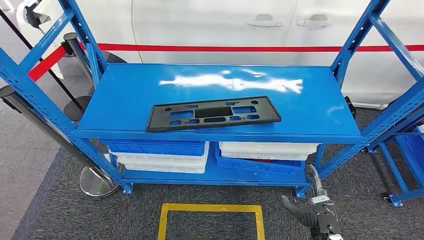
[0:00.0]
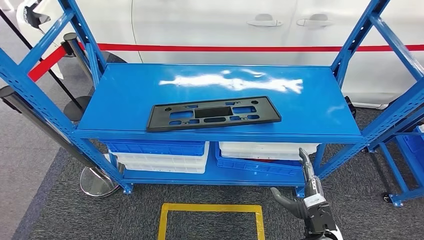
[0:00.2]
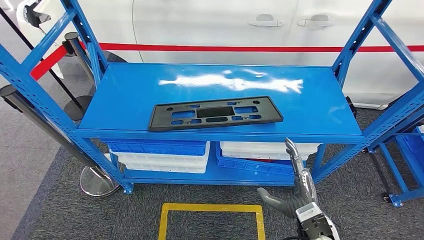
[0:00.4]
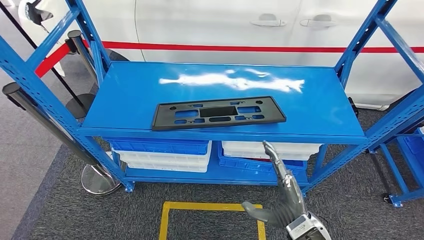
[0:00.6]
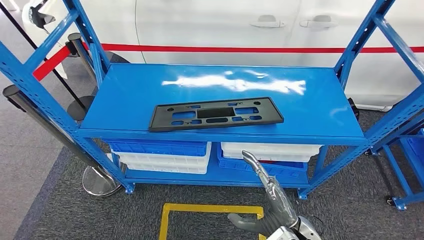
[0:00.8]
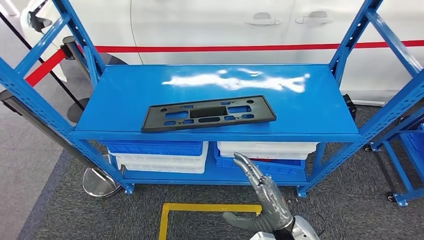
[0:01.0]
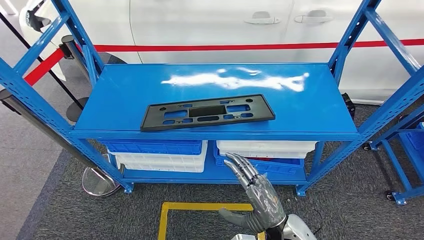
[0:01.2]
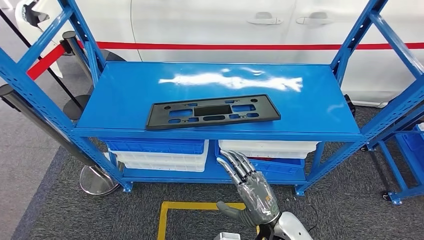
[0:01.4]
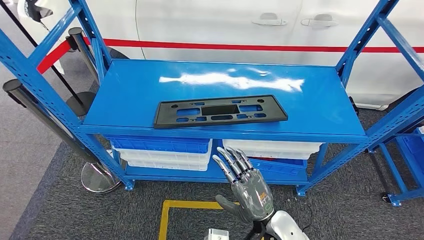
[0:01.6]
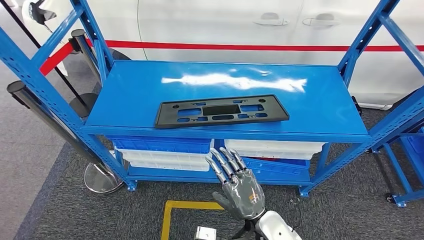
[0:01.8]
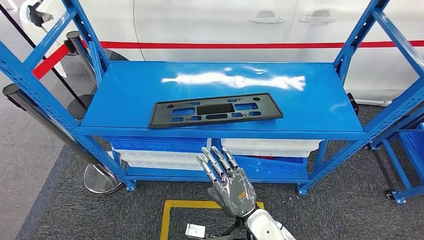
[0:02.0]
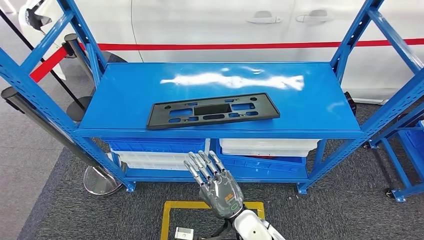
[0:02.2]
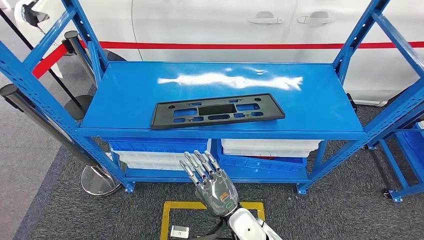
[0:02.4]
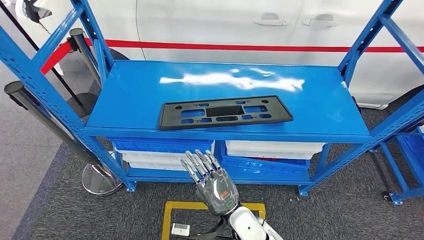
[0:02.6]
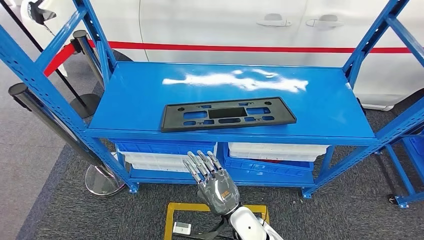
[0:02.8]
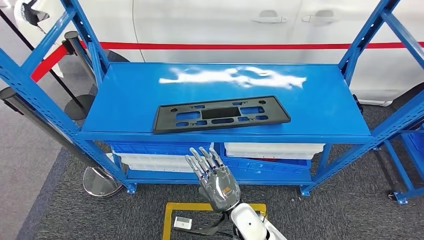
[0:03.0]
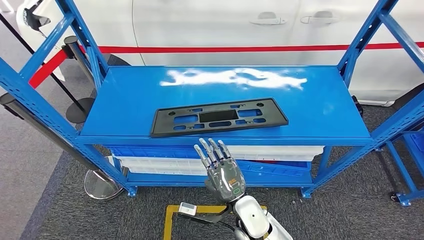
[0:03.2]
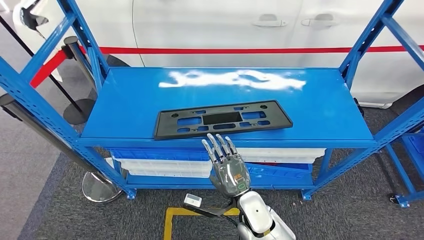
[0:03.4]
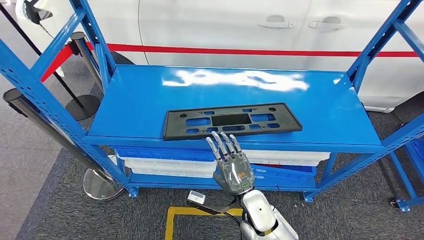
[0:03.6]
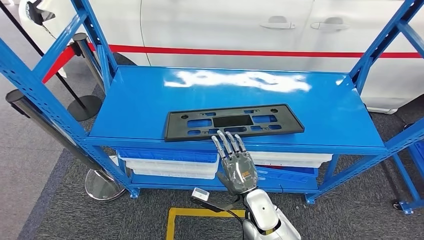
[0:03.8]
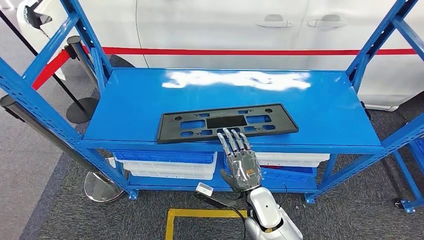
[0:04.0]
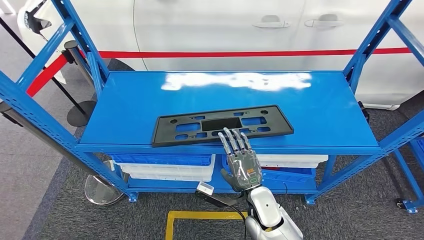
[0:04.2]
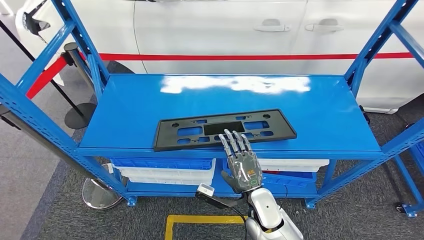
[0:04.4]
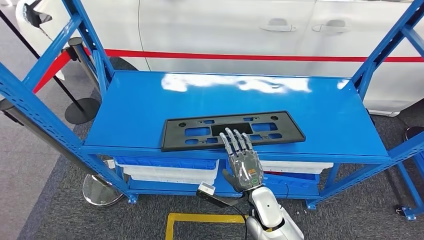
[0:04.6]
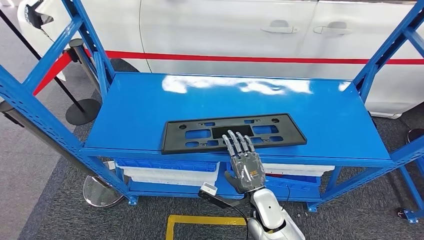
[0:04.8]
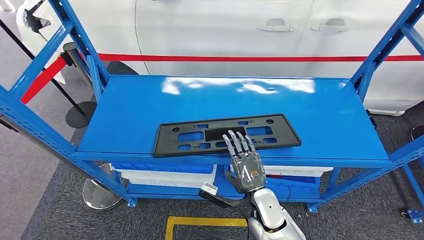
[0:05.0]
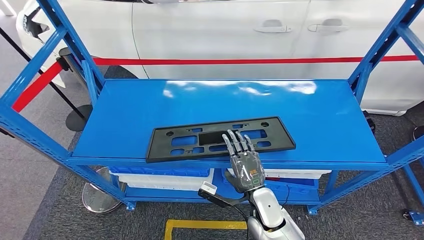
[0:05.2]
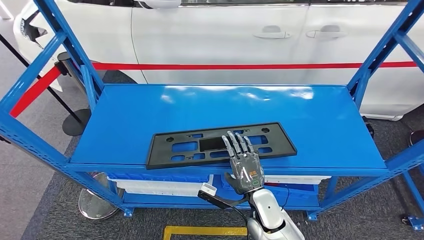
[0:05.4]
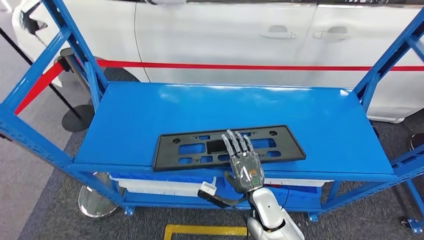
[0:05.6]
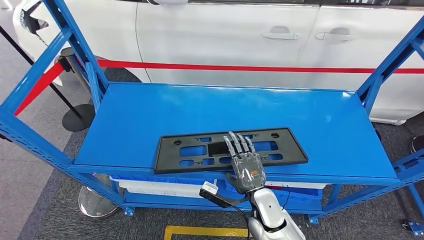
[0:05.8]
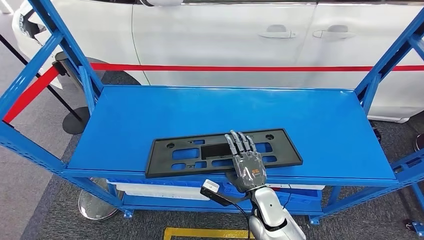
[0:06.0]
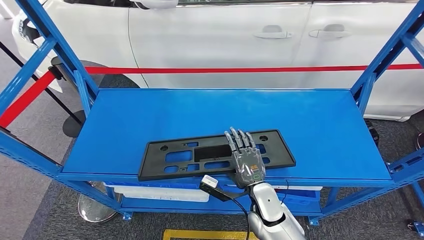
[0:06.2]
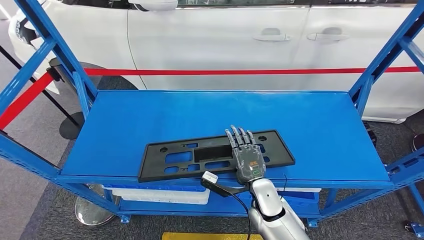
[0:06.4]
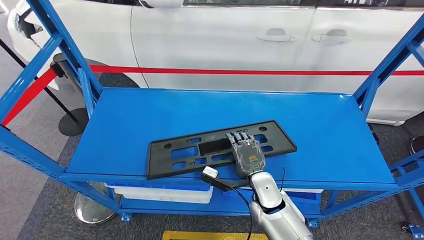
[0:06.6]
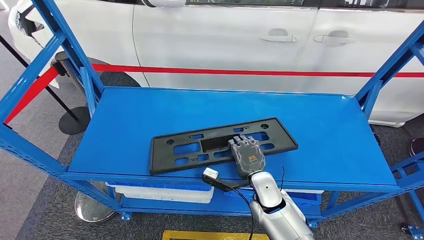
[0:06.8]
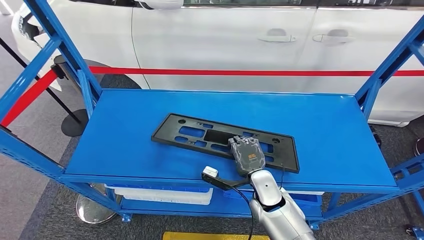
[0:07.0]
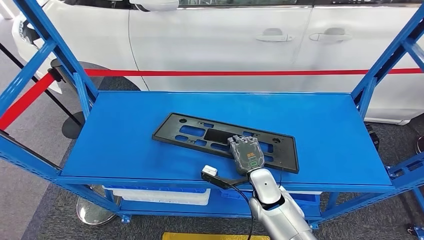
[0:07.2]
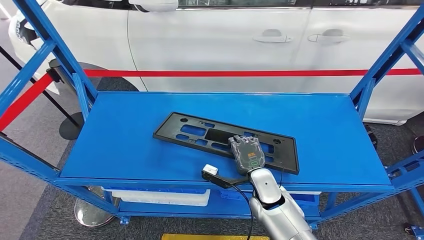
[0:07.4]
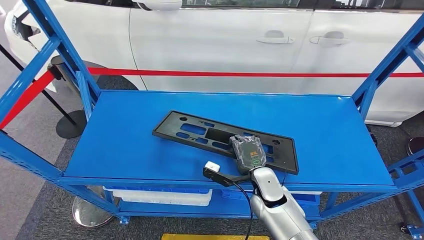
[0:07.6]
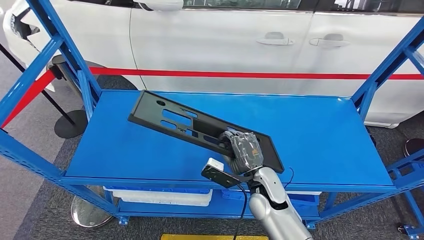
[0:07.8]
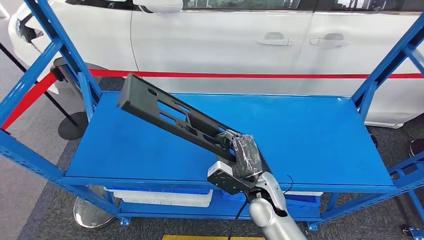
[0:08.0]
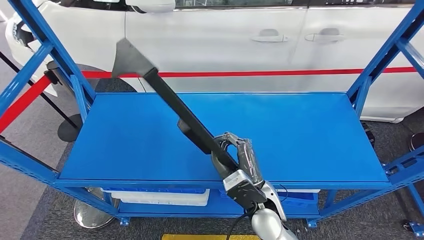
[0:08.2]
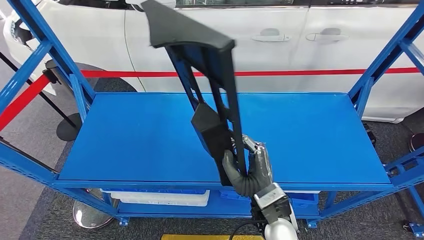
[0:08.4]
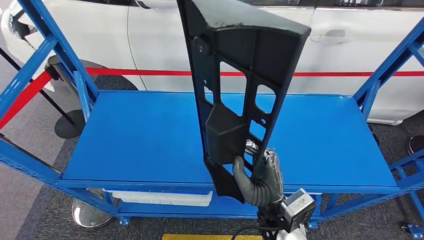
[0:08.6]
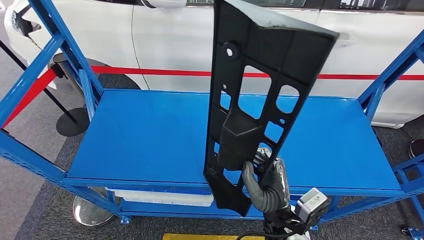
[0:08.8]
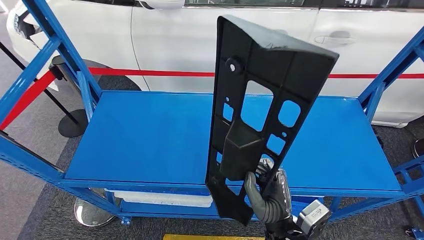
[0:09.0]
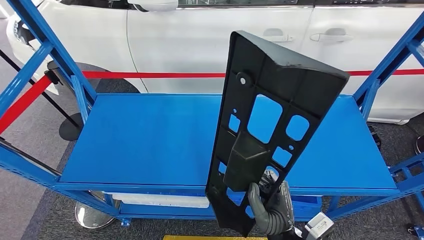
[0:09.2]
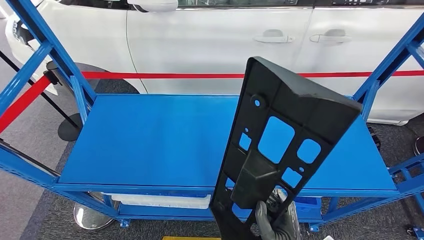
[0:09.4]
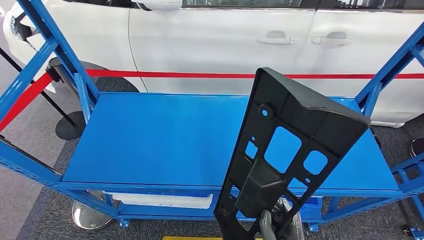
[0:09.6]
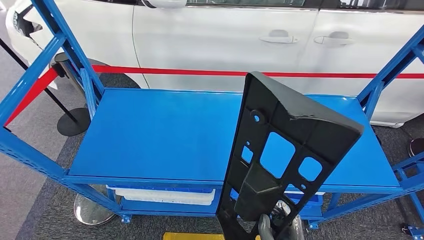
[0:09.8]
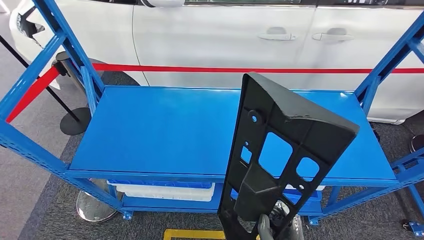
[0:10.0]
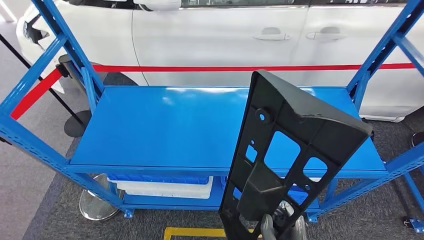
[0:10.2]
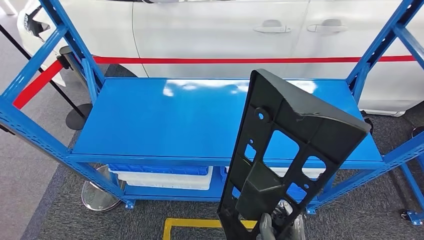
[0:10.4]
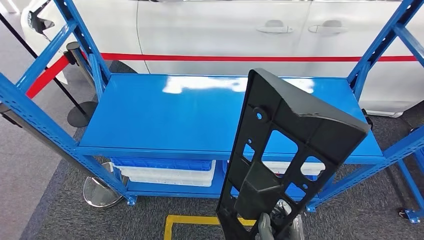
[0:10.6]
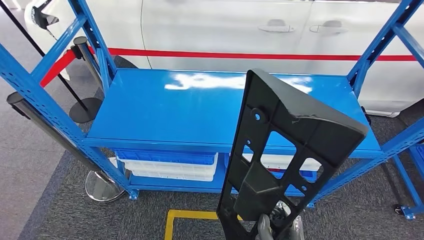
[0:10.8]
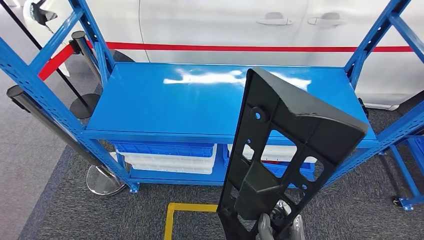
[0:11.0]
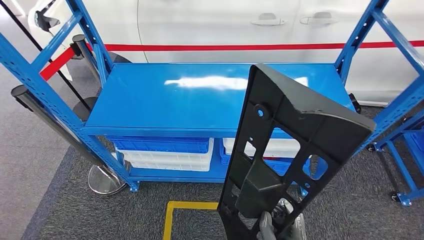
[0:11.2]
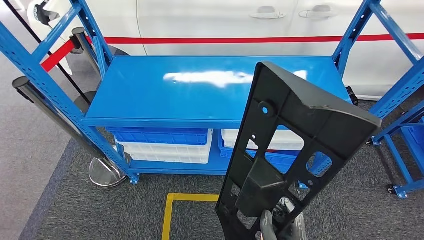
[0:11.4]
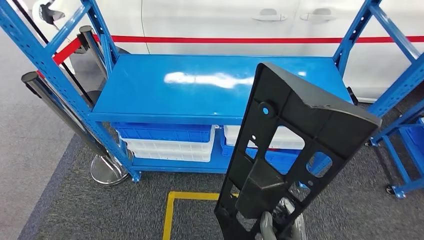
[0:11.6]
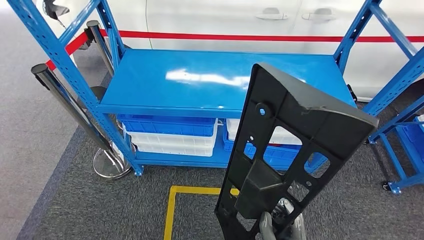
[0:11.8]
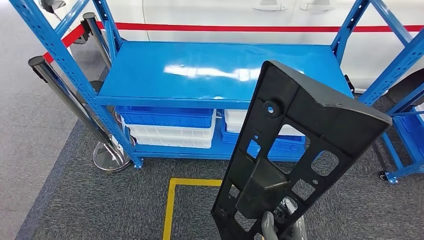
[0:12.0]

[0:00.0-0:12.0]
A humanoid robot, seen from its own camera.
Step, 0:00.0 to 0:08.6: Pick up the large material from the shelf.

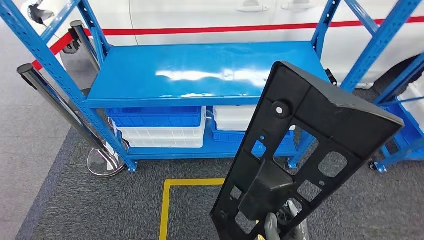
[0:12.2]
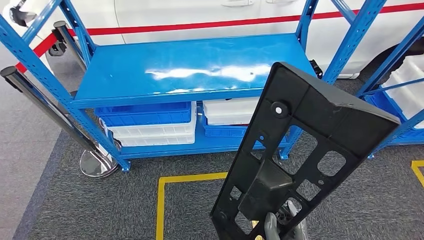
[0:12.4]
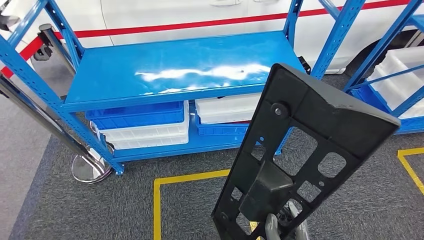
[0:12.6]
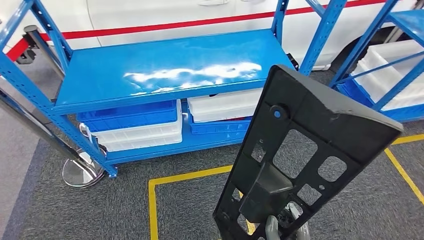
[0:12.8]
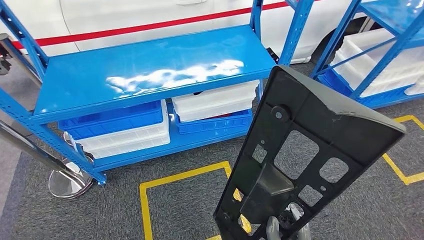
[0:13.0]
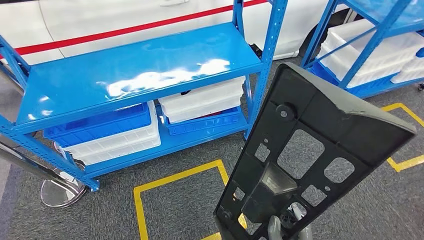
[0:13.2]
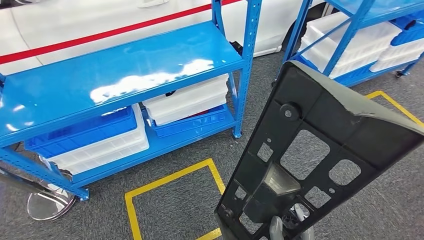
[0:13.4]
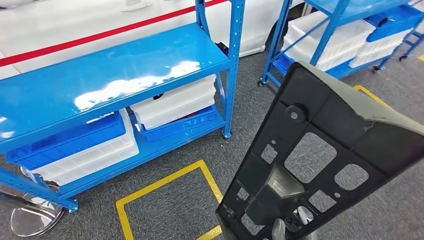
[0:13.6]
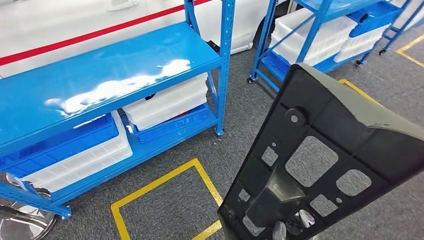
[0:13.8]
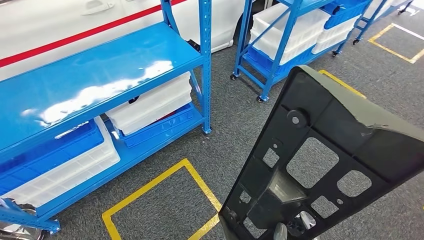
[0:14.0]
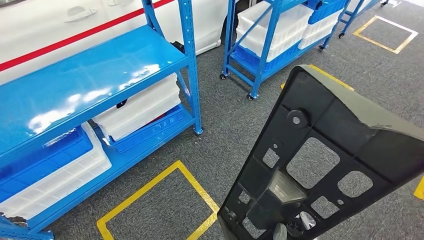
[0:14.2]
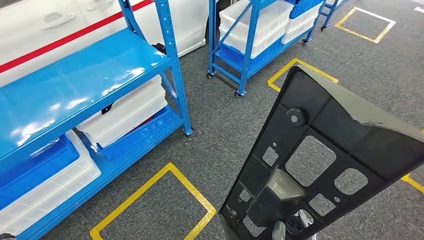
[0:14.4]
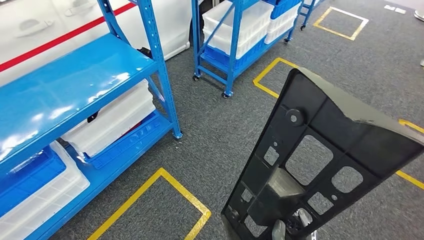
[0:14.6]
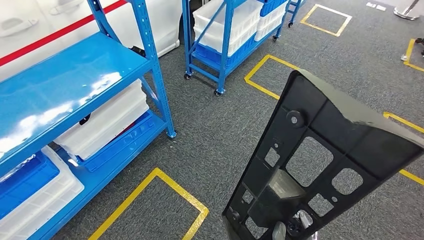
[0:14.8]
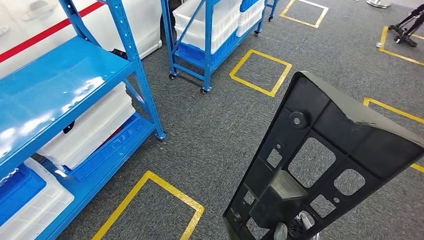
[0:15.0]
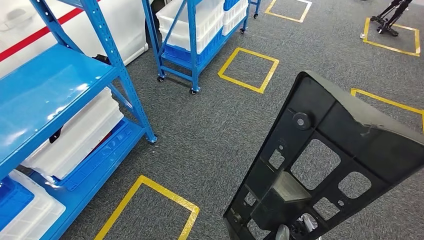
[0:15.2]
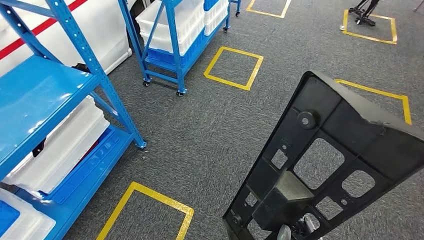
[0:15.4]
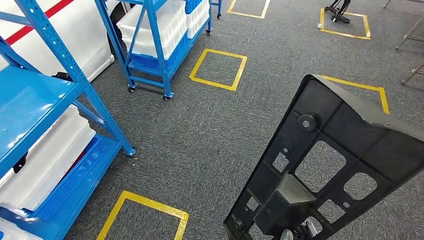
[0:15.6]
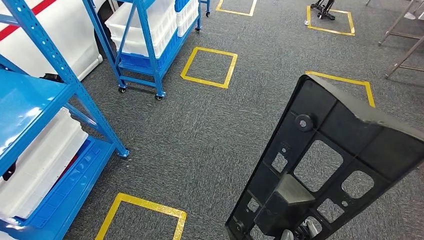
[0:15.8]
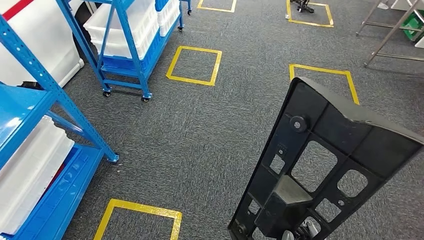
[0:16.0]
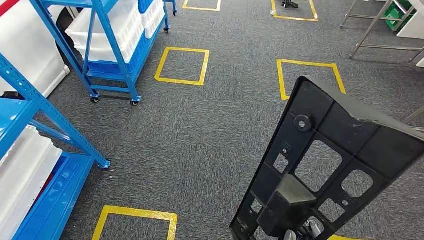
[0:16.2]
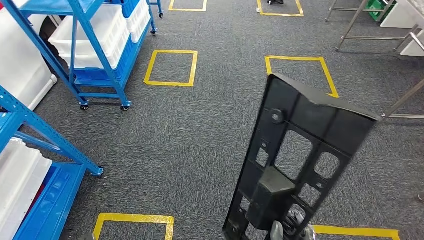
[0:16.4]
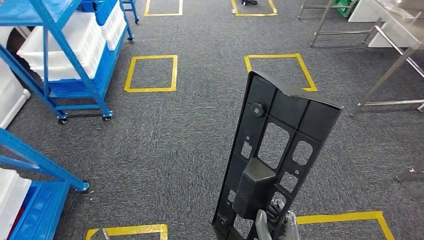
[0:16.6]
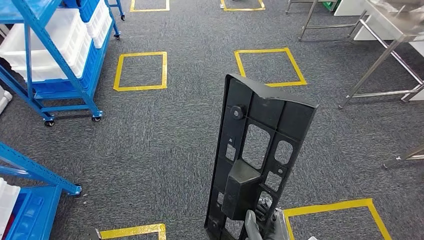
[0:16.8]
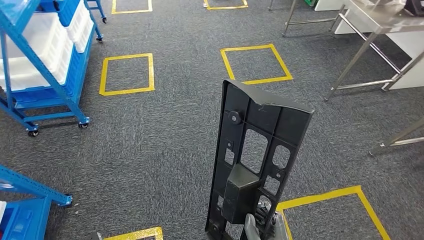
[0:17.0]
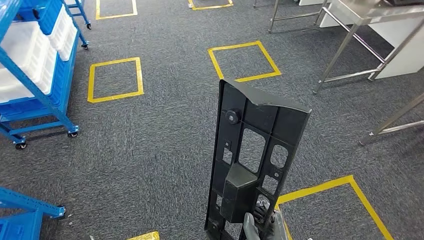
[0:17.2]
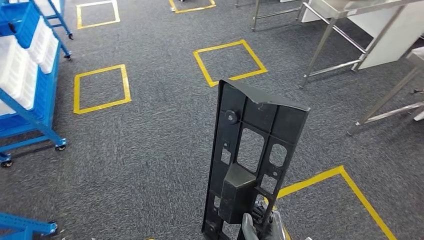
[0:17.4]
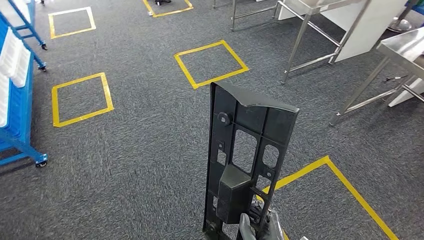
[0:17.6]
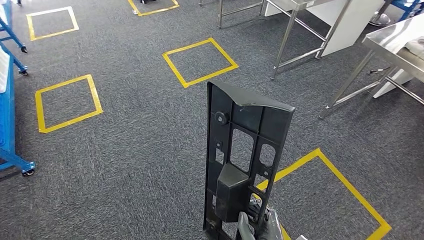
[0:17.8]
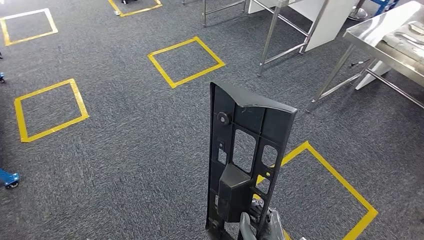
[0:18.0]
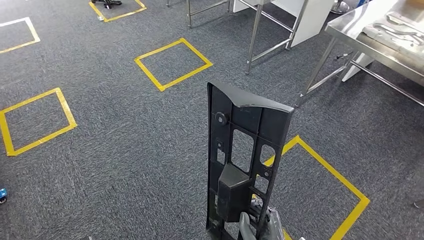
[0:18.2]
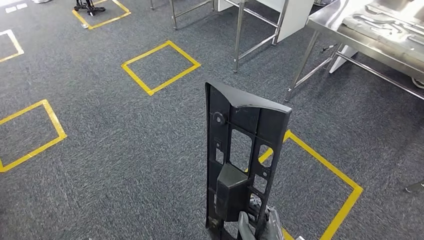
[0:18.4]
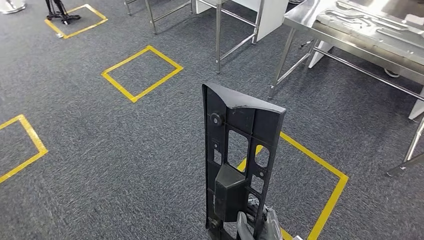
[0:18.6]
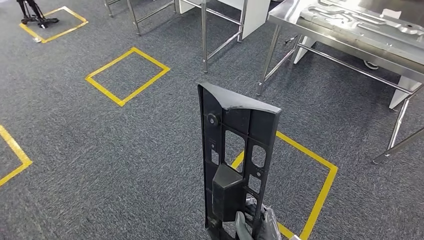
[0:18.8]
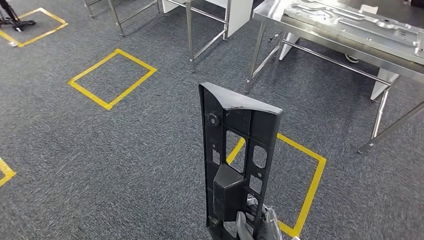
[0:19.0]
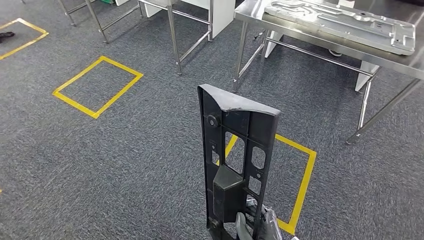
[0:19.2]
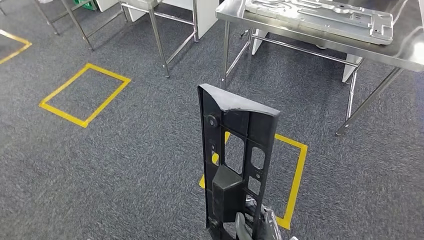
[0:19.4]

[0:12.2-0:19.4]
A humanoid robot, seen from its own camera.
Step, 0:12.2 to 0:16.8: Move the large material to the workbench.
